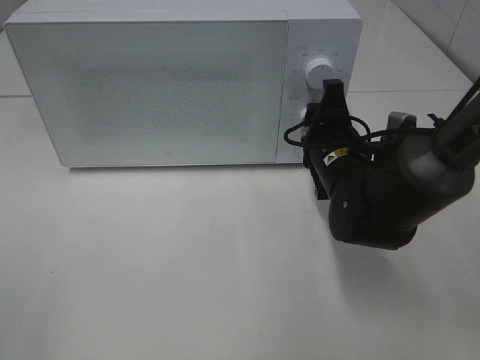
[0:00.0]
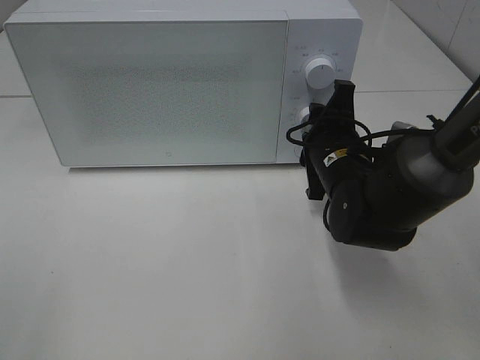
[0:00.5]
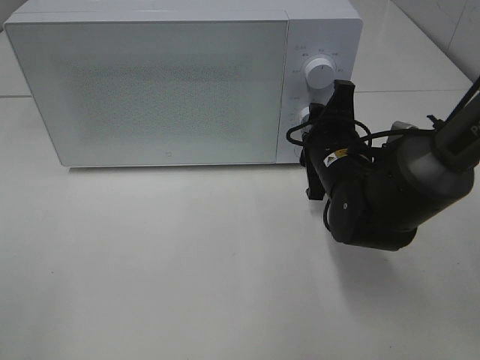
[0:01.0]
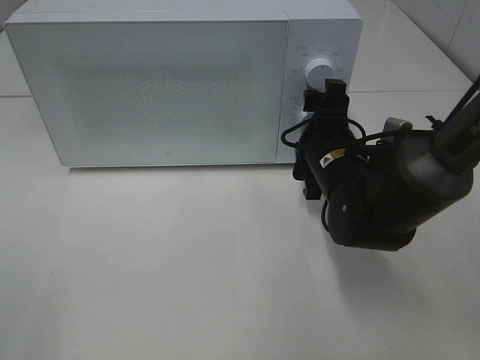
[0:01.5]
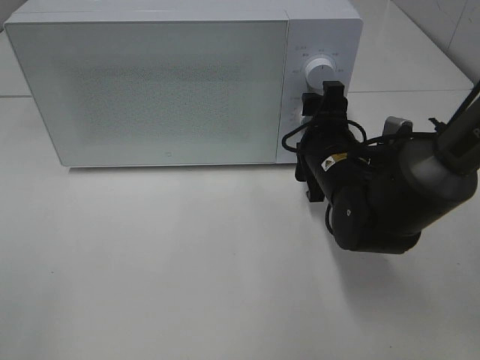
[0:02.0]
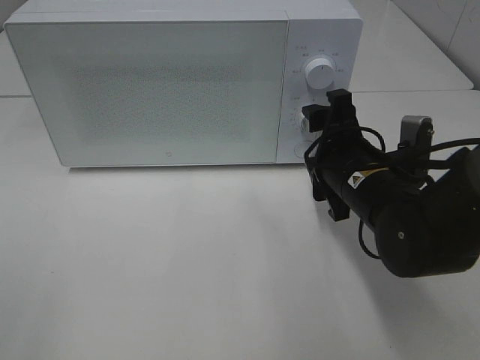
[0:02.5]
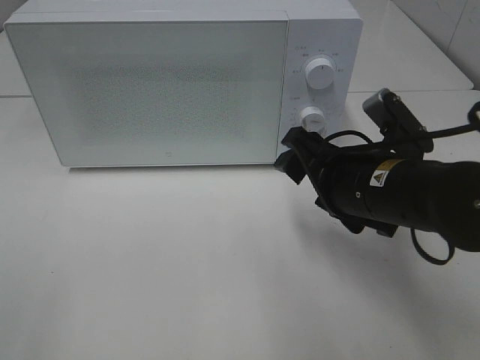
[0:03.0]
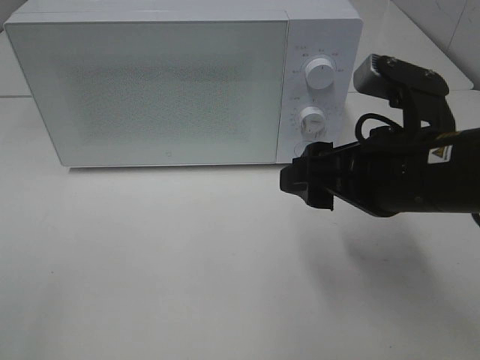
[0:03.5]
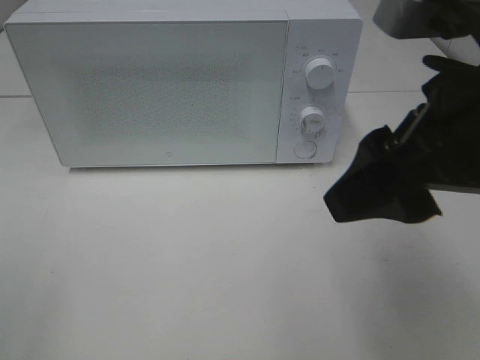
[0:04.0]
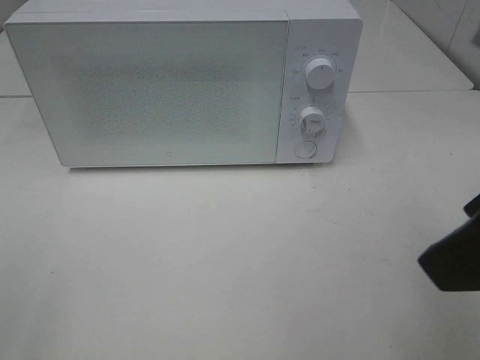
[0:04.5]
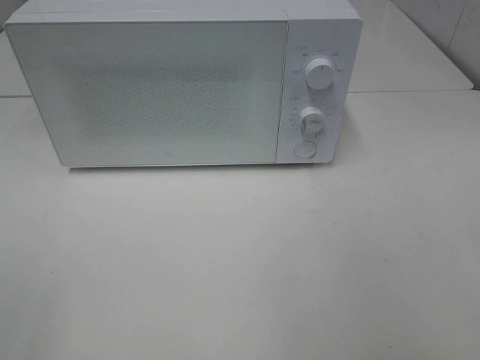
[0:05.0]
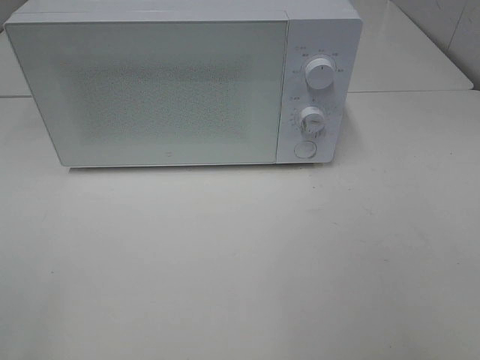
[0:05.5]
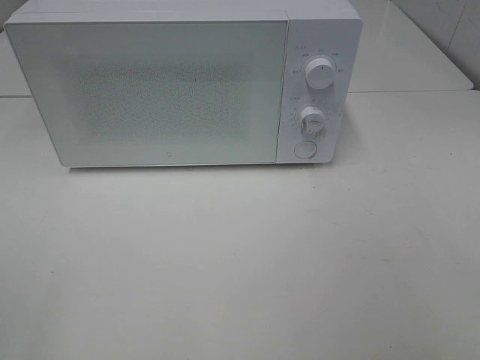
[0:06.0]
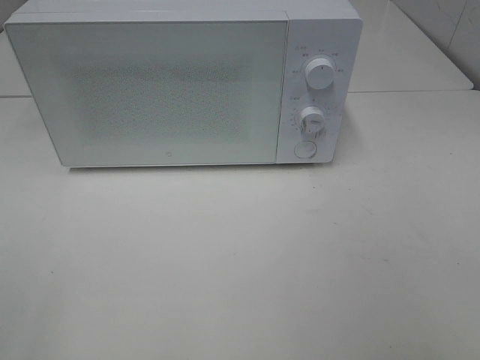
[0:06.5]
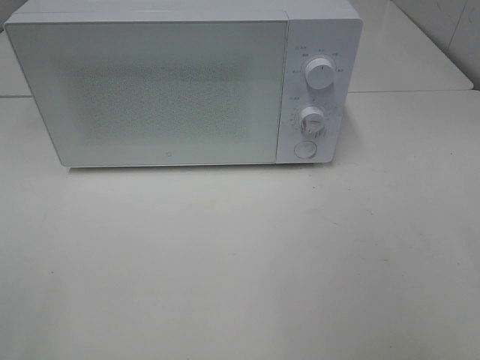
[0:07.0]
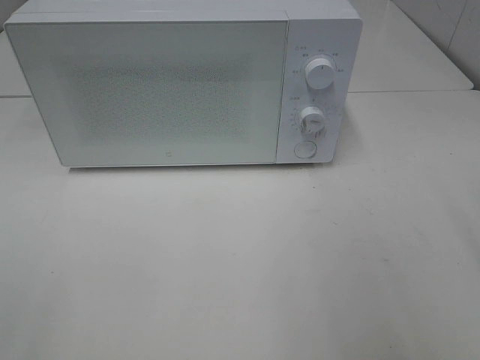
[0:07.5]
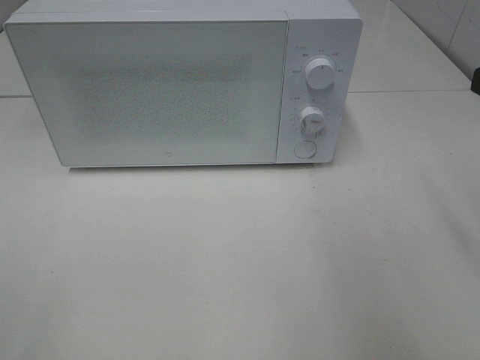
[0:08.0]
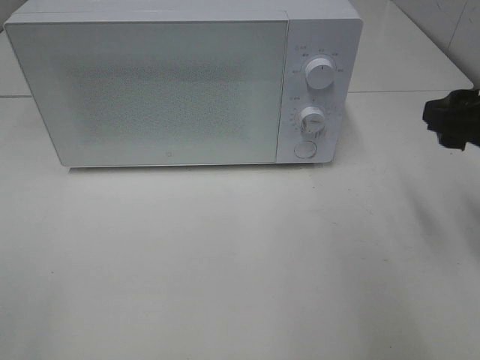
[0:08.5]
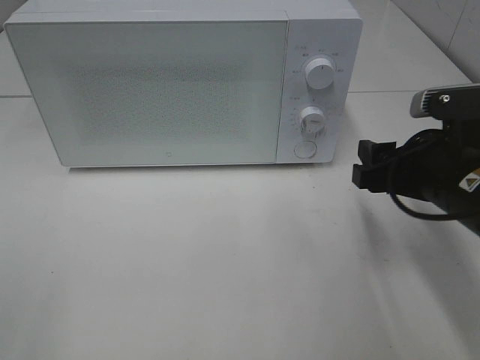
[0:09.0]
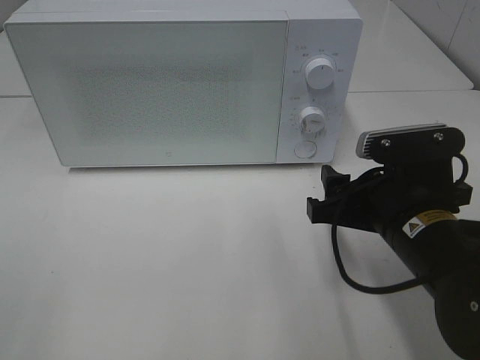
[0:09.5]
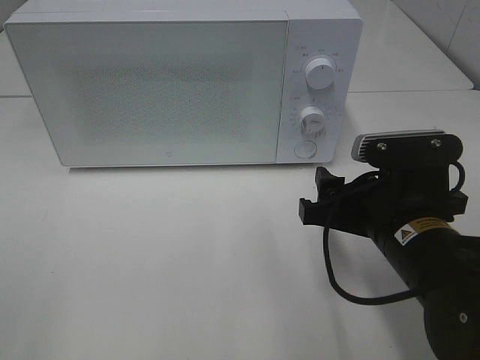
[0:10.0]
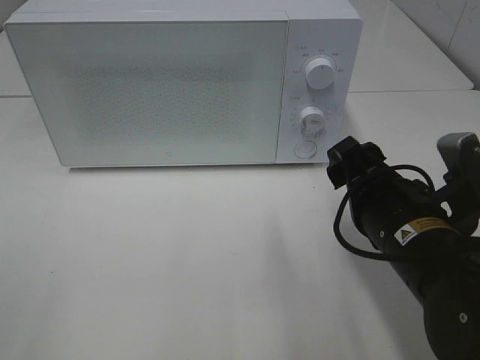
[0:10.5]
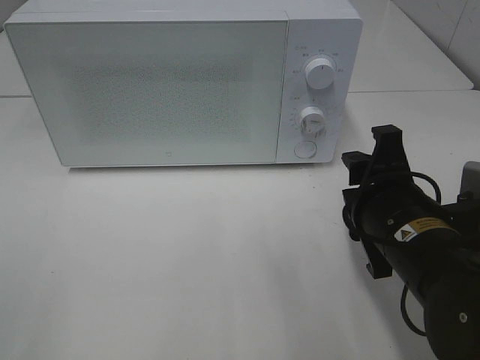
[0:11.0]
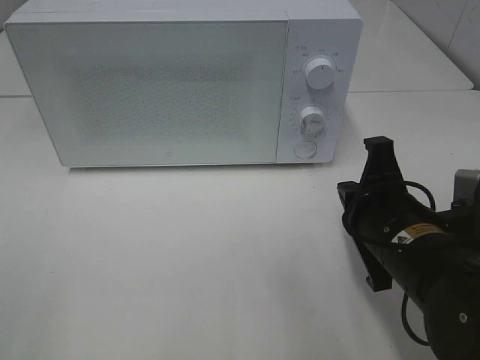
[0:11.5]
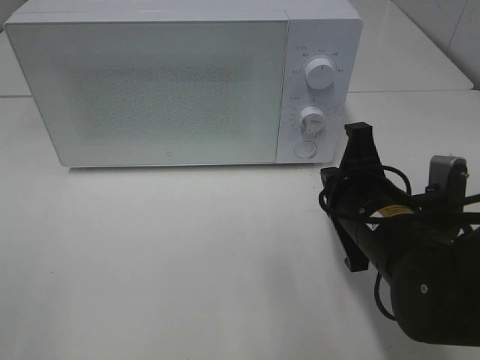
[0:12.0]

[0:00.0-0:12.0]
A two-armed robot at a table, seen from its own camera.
Task of the whole recording: Heat Sandwich.
Step, 0:00.0 to 0:02.5: Right hand: twist timer button.
0:00.0 to 0:02.0: The right gripper opens.
0:02.0 to 0:04.0: The right gripper shifts about 25 cm upward and backward.
0:04.0 to 0:06.0: The right gripper travels backward and to the right by about 20 cm.
0:08.0 to 0:10.0: The right gripper is displaced downward and to the left by about 20 cm.
0:10.0 to 0:12.0: The right gripper closes.

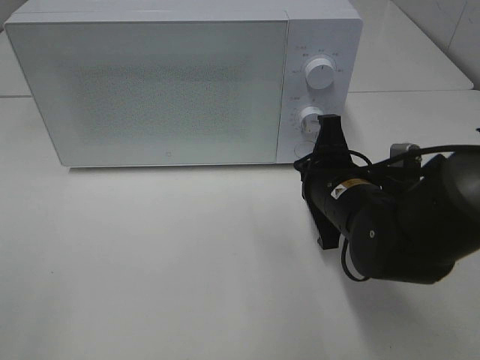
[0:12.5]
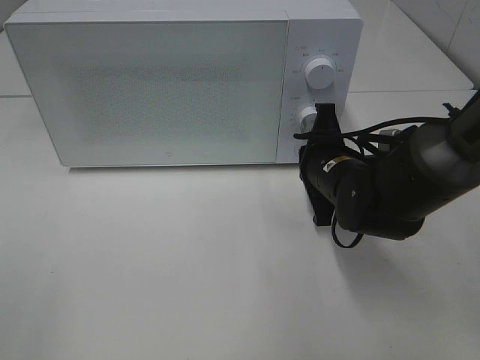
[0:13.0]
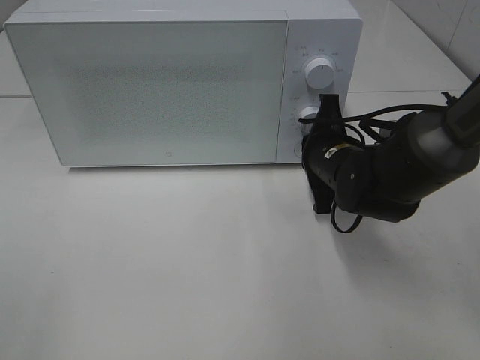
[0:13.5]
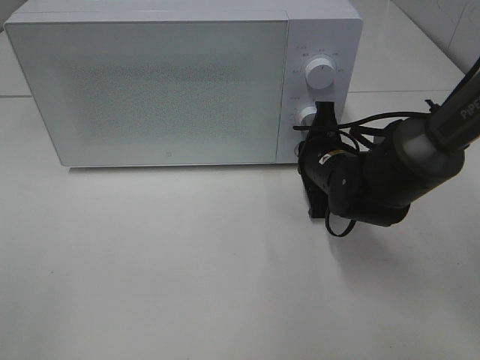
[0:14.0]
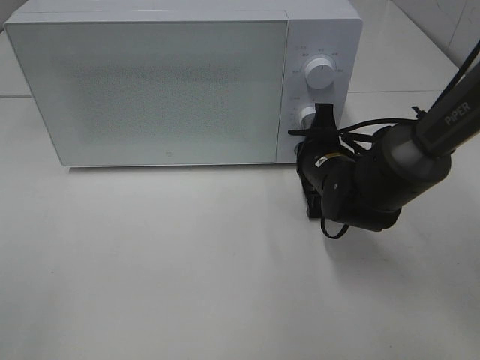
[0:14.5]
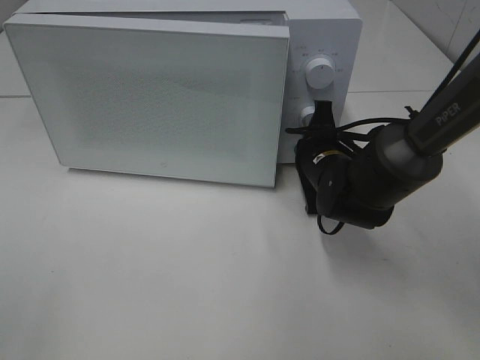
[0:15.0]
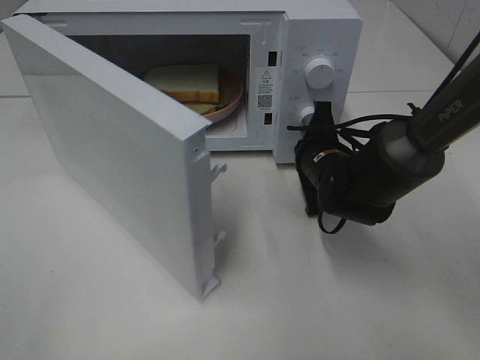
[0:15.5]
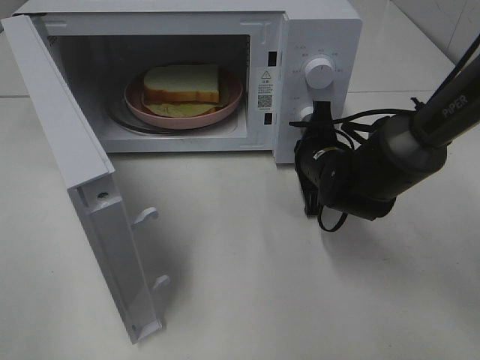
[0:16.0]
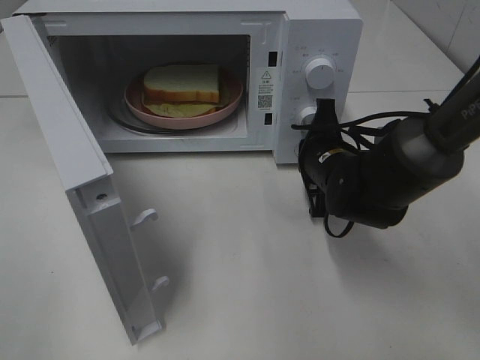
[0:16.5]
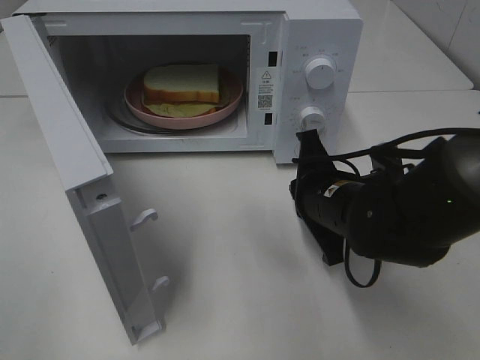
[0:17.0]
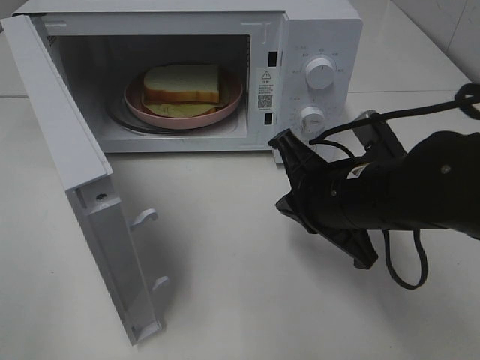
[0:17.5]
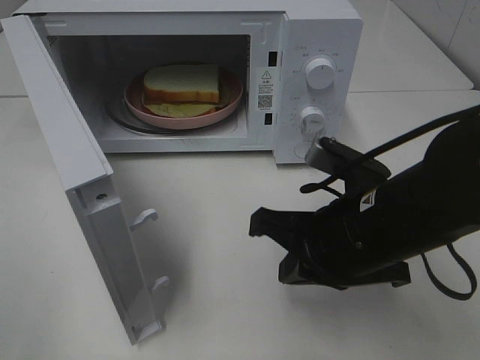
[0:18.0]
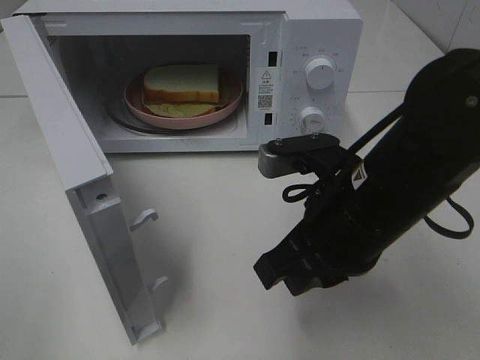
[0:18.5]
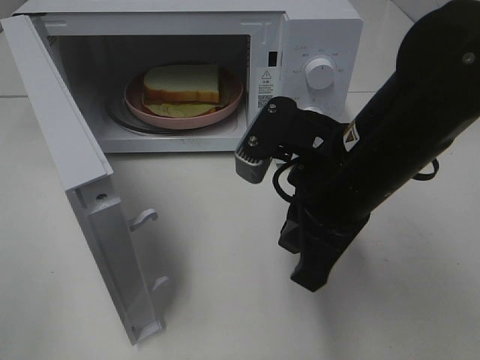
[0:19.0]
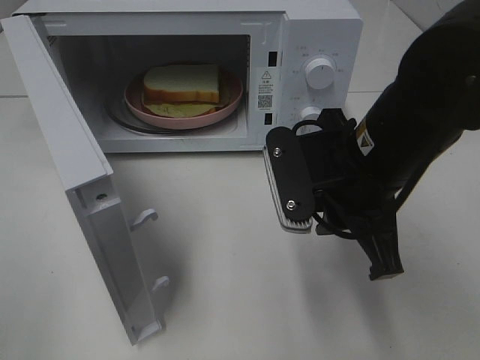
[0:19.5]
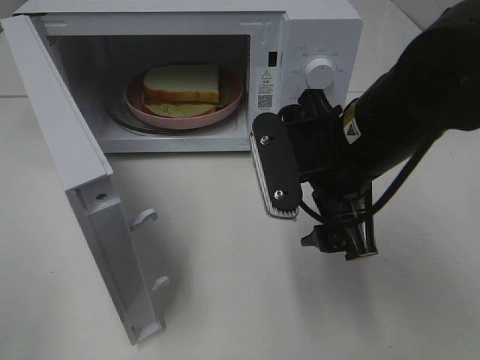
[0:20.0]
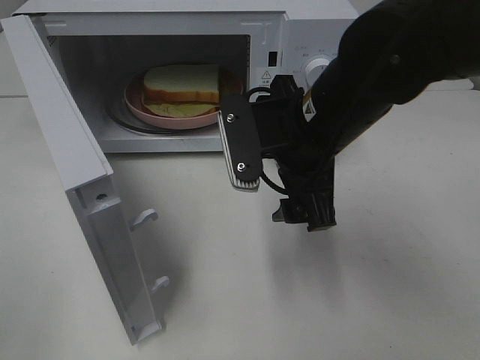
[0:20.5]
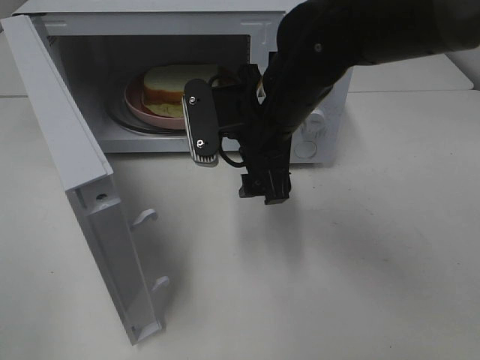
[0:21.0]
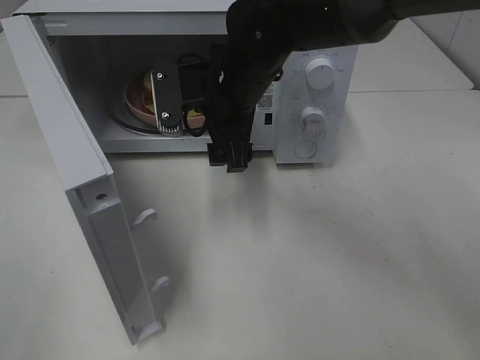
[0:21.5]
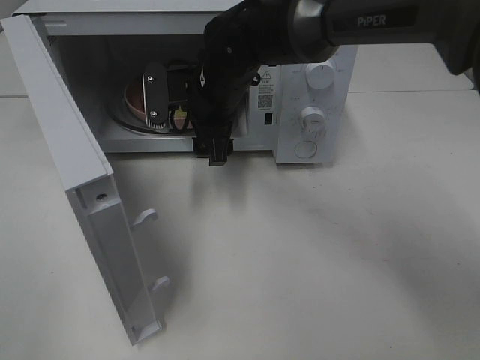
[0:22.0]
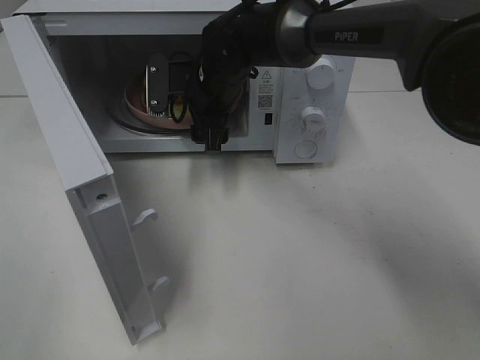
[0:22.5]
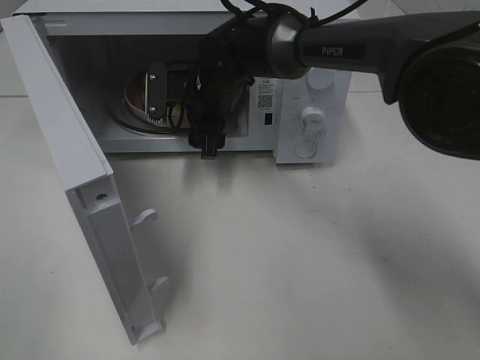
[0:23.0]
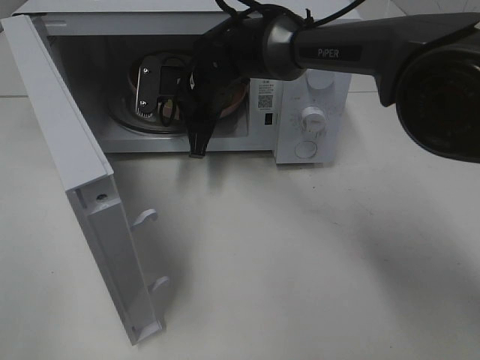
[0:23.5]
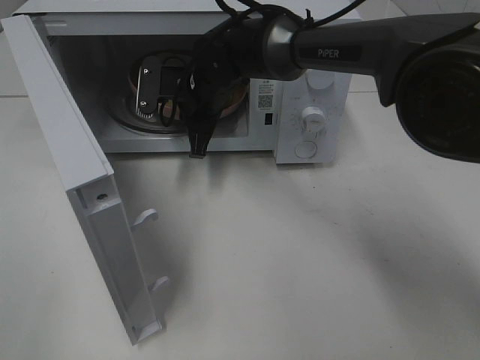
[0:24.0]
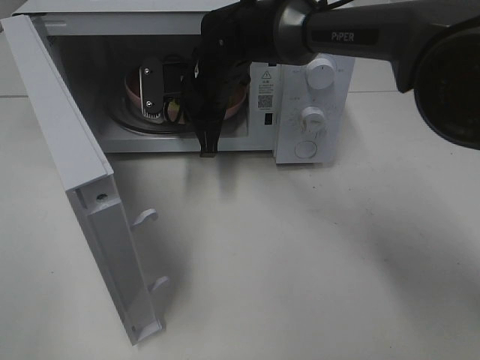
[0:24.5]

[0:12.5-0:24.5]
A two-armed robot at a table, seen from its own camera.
Task of the whole recording: Heat Sandwich.
Step, 0:12.5 to 0:16.5: Right hand: press the switch.
0:12.5 to 0:14.5: The right gripper goes approximately 10 cm forward.
0:16.5 to 0:18.5: The right gripper travels backward and upward by about 15 cm.
0:18.5 to 0:20.5: The right gripper heads forward, covering roughly 5 cm, and opens up.
0:20.5 to 0:22.5: The right gripper is displaced forward and to the left by approximately 20 cm.
0:22.5 to 0:24.5: The right gripper closes.

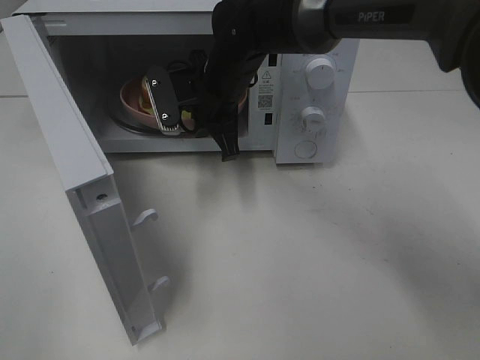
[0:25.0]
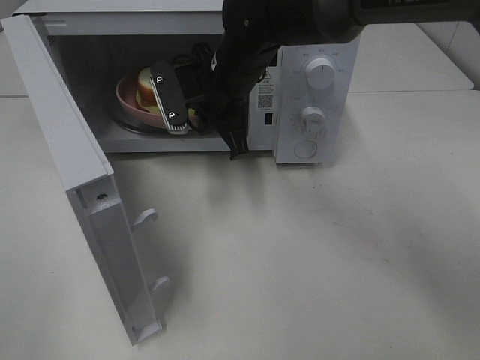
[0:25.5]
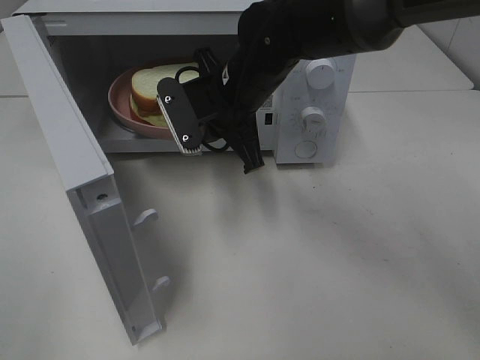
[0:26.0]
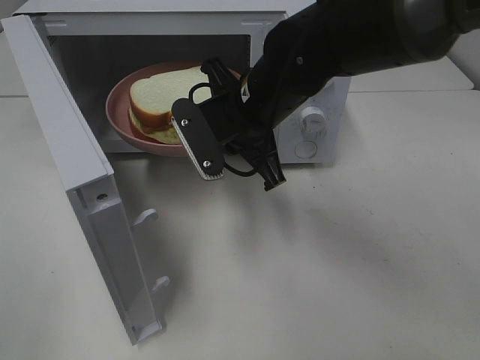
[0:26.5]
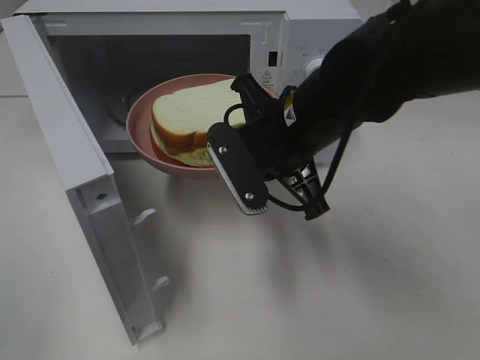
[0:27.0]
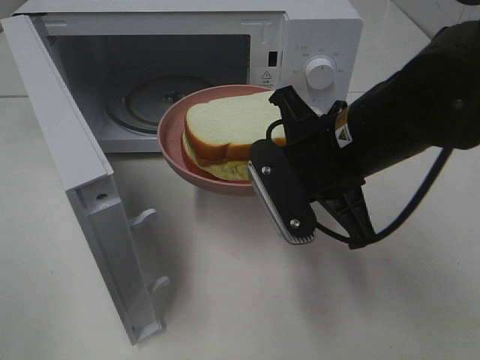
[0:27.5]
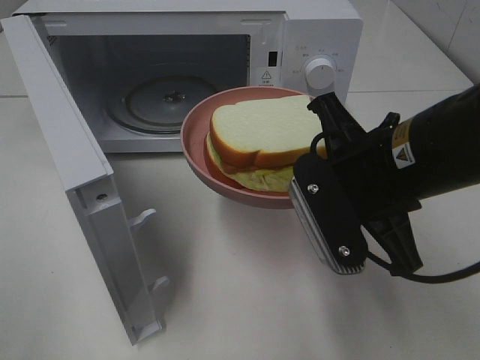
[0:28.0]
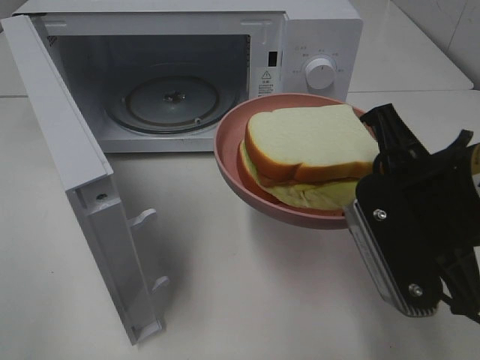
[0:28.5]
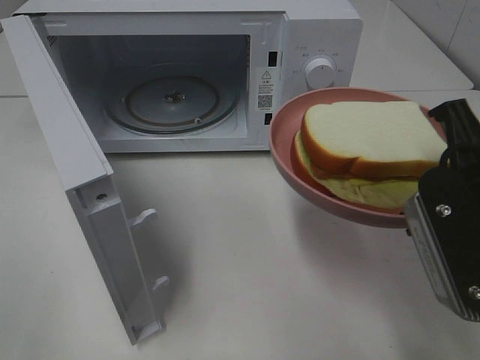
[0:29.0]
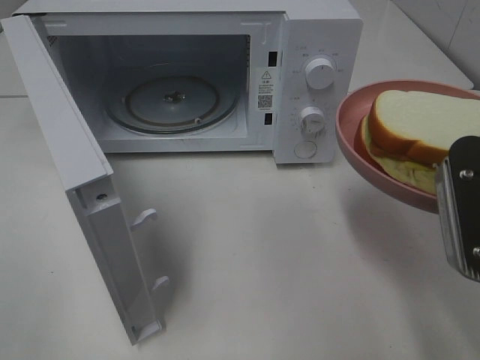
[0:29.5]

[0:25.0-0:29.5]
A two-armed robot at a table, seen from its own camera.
Task of the whole recording: Heat Sandwich.
0:25.0 to 0:27.0: The right gripper is displaced backward and to the right by approximately 15 cm.
0:27.0 to 0:29.5: The right gripper shifts roughly 20 cm to the right and backward.
